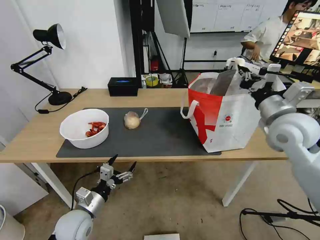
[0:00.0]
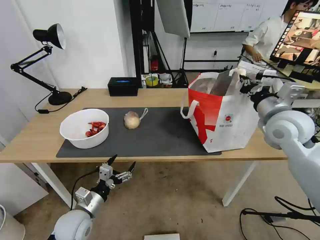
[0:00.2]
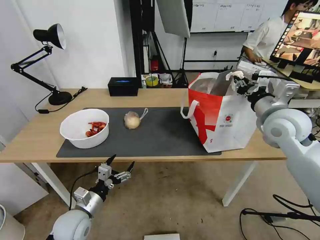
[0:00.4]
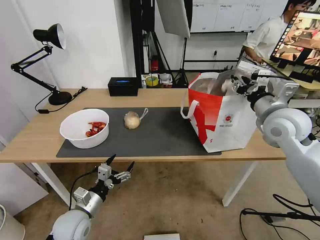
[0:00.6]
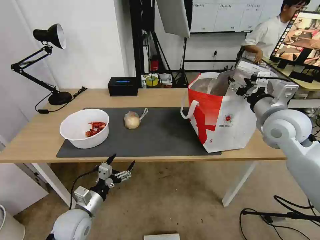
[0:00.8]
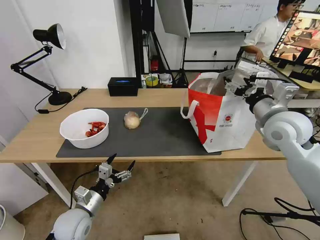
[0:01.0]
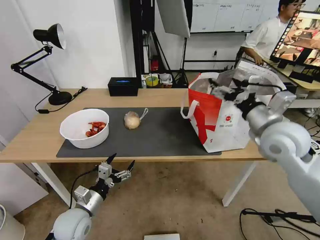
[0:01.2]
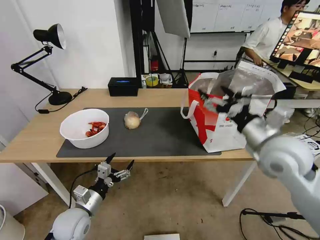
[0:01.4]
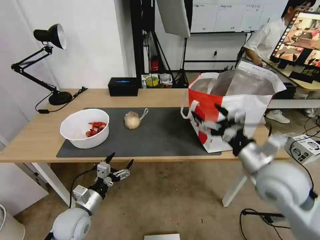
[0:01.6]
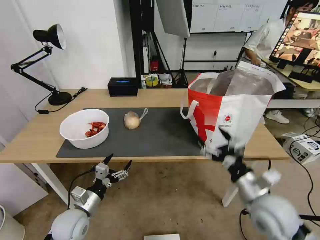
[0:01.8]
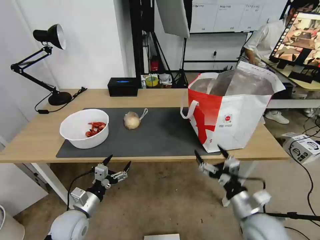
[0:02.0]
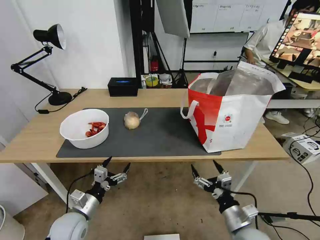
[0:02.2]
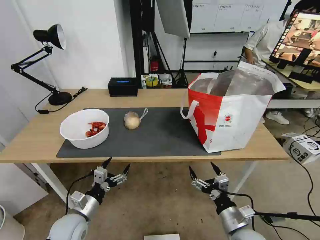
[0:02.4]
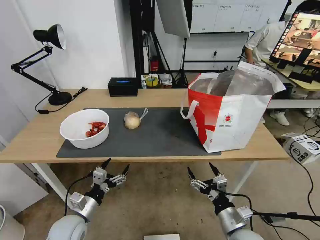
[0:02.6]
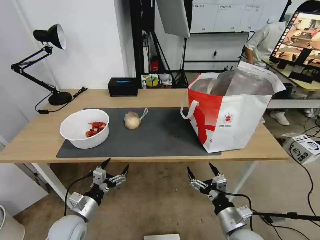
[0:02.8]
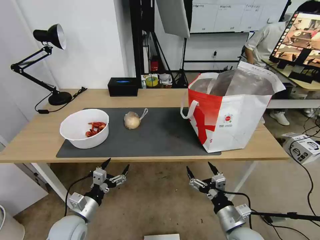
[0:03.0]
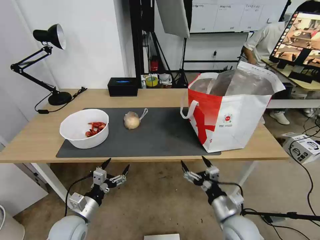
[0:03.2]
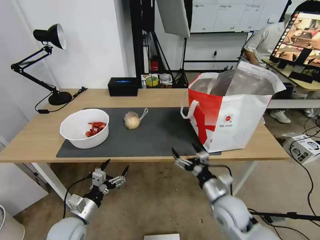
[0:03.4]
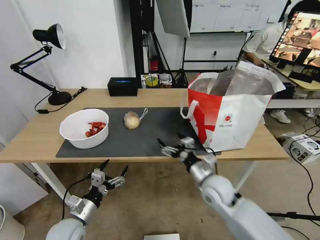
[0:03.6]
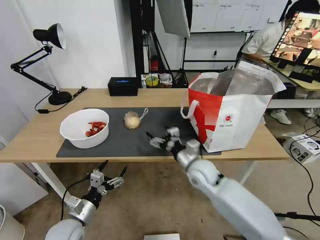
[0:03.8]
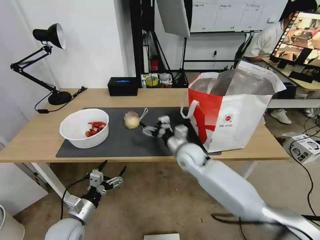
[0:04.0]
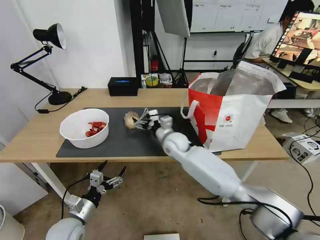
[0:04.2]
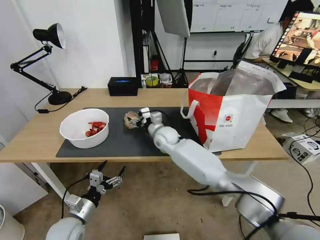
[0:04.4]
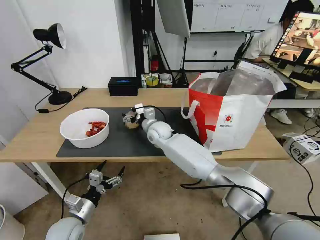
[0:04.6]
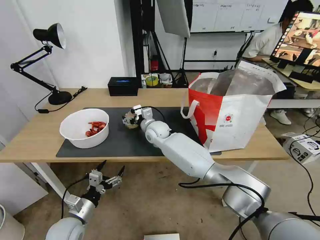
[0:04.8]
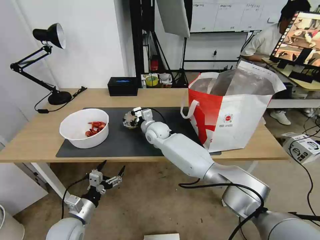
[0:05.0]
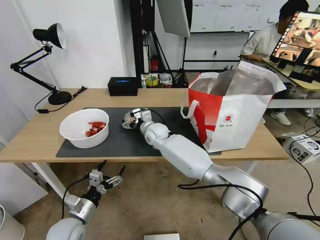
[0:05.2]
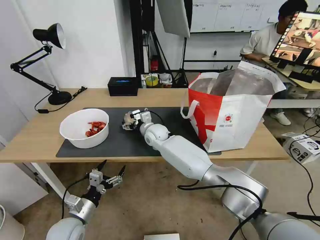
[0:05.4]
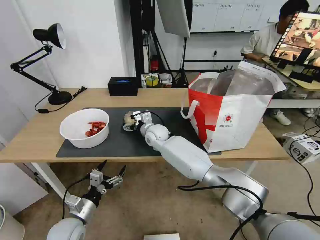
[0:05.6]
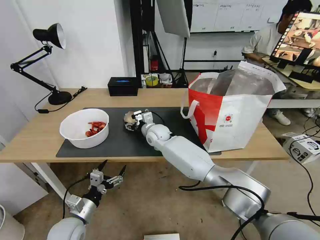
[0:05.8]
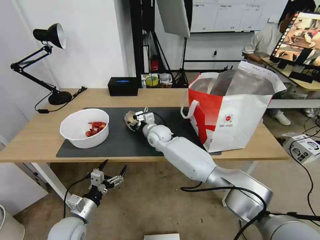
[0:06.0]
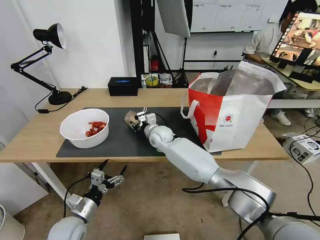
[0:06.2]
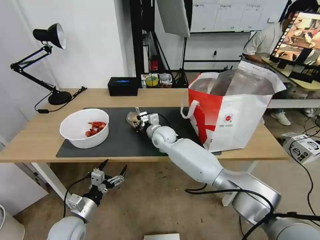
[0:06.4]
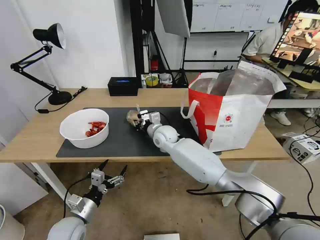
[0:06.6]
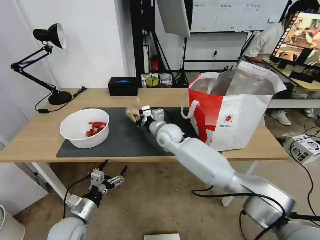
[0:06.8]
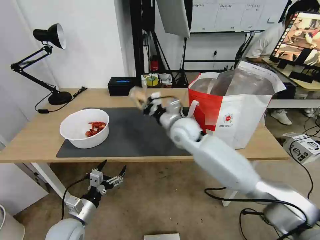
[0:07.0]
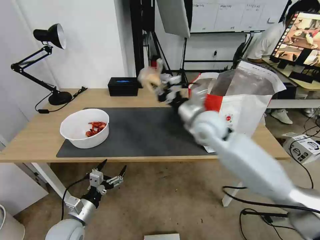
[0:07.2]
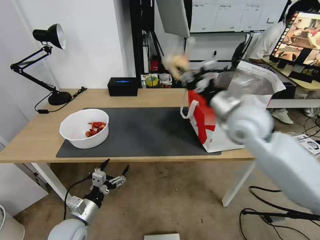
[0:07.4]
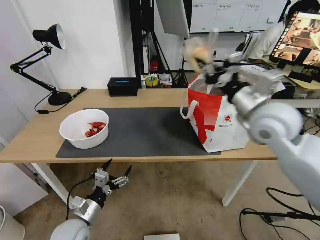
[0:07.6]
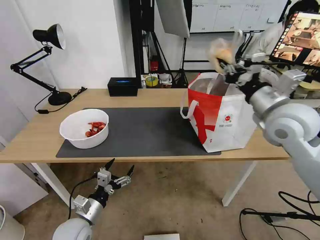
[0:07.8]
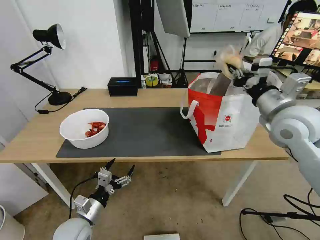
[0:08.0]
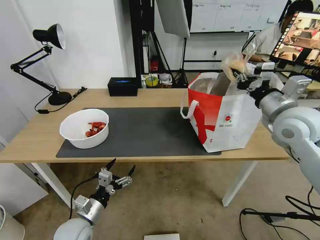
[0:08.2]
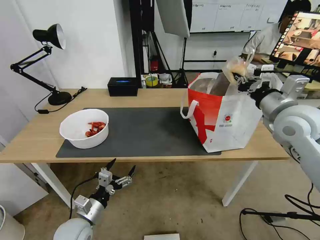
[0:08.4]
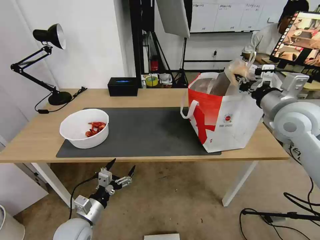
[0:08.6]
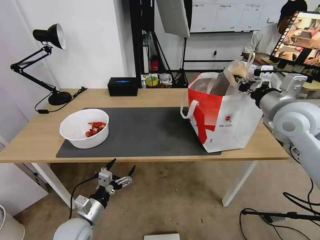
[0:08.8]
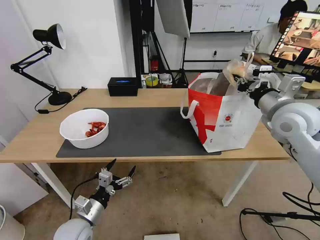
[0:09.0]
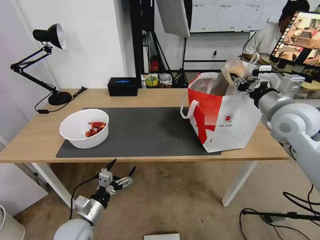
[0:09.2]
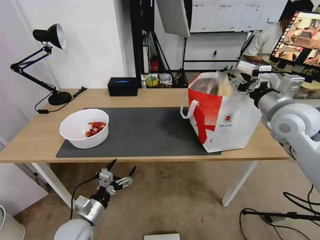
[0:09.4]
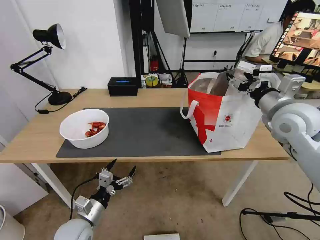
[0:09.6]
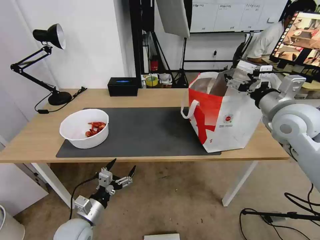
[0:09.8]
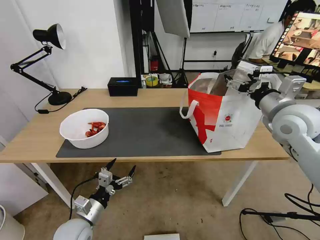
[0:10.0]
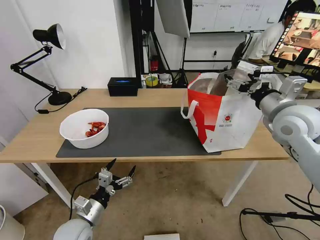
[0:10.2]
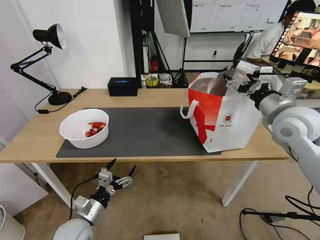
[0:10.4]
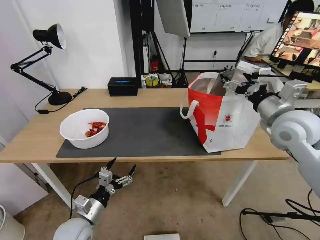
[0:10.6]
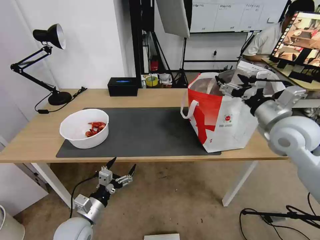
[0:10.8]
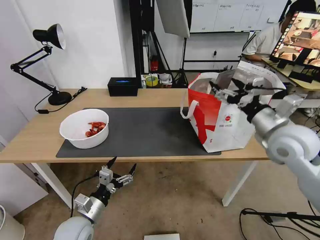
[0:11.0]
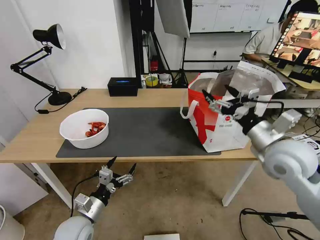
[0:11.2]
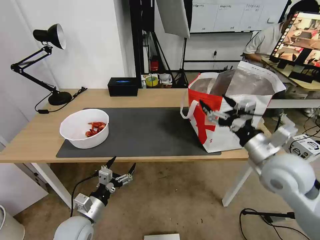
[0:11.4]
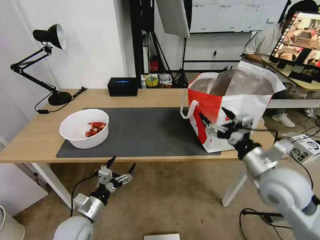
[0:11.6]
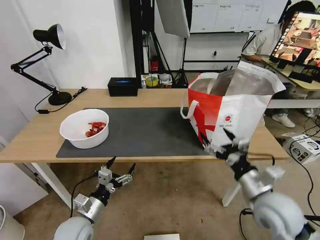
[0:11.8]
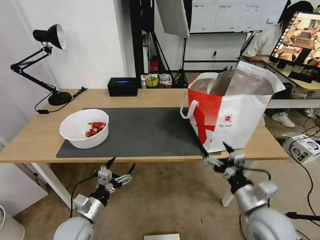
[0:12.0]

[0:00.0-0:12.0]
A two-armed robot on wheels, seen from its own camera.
Task of the whole recording: Pick up the trash from the table and place it into the takeout bag.
0:00.0 to 0:01.6: The right gripper goes about 15 cm backward, downward and to the left, and opens its fingers.
0:01.6 to 0:03.0: The right gripper goes about 20 cm downward and backward.
0:03.0 to 0:04.4: The right gripper travels forward and to the left by some 35 cm.
0:04.4 to 0:06.0: The right gripper moves to the left, some 5 cm, and closes its fingers.
0:06.0 to 0:07.6: The right gripper moves to the right, upward and backward, some 40 cm, and closes.
0:07.6 to 0:09.0: The right gripper goes roughly 10 cm to the right.
0:09.0 to 0:10.4: The right gripper opens its fingers.
0:10.4 to 0:12.0: The right gripper heads downward and backward, covering about 25 cm.

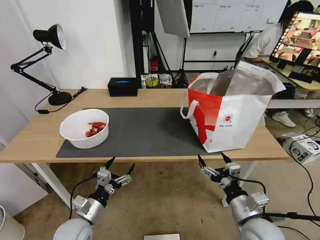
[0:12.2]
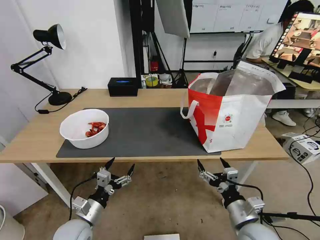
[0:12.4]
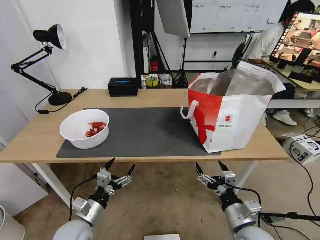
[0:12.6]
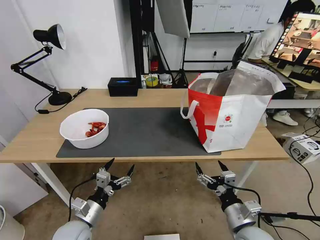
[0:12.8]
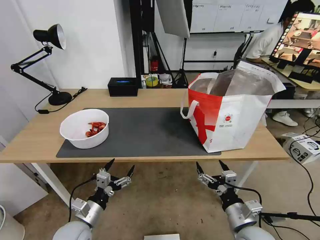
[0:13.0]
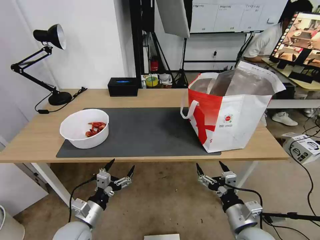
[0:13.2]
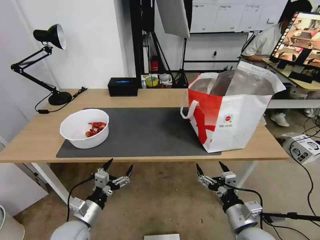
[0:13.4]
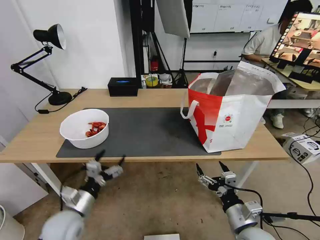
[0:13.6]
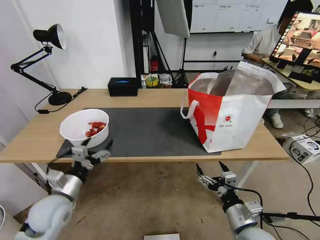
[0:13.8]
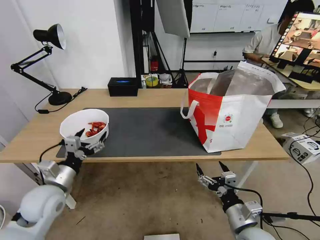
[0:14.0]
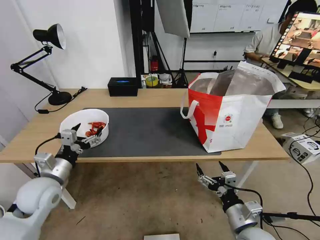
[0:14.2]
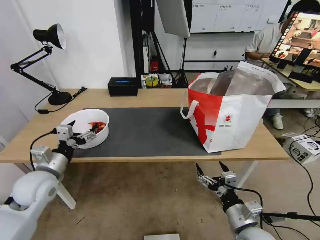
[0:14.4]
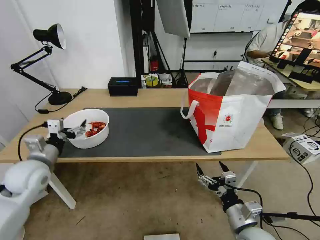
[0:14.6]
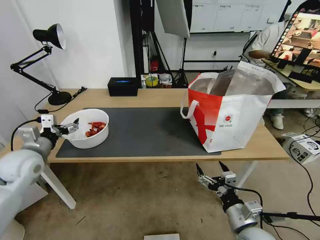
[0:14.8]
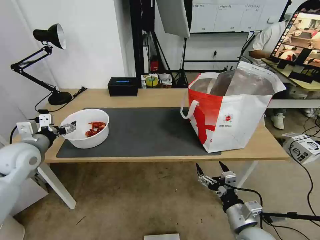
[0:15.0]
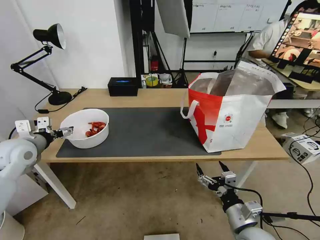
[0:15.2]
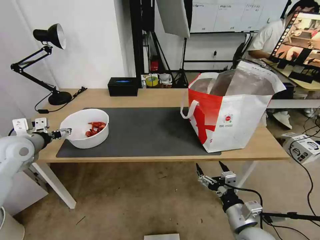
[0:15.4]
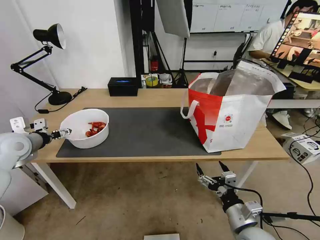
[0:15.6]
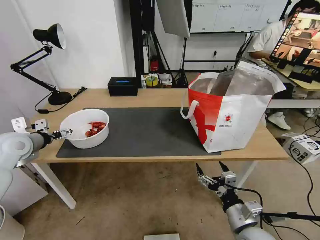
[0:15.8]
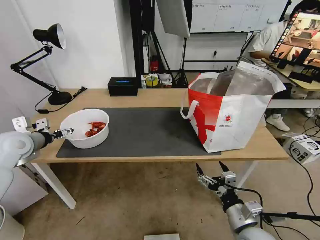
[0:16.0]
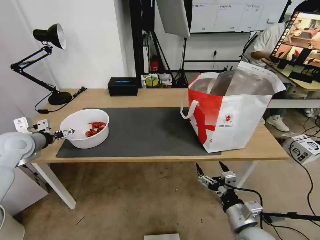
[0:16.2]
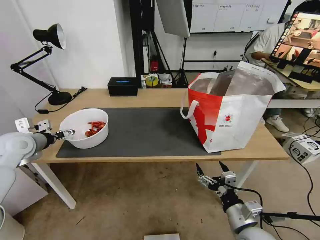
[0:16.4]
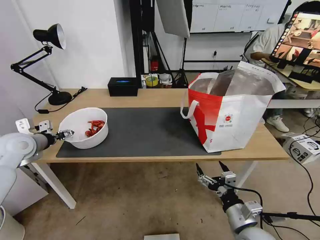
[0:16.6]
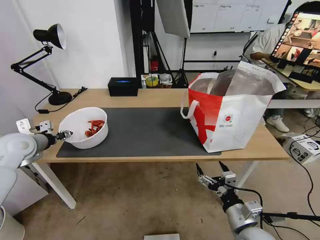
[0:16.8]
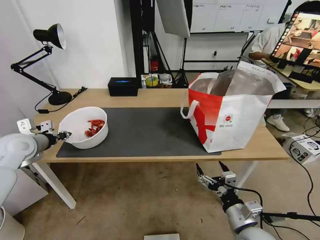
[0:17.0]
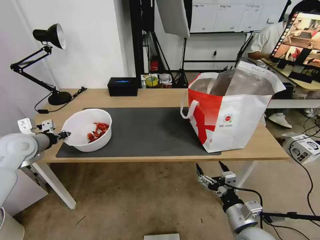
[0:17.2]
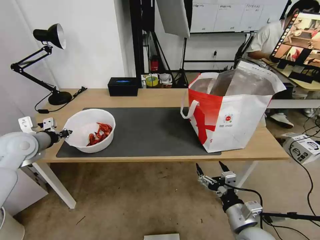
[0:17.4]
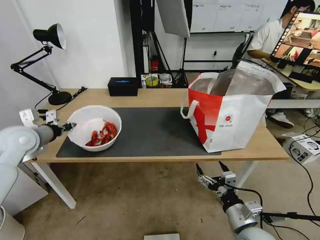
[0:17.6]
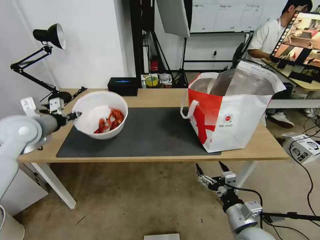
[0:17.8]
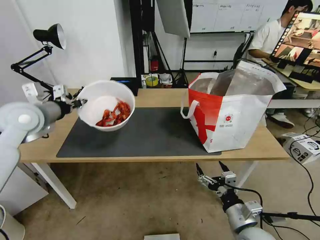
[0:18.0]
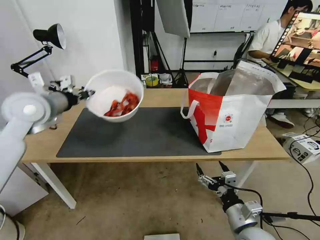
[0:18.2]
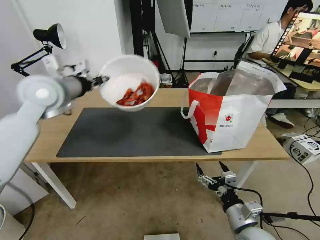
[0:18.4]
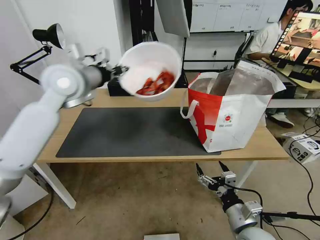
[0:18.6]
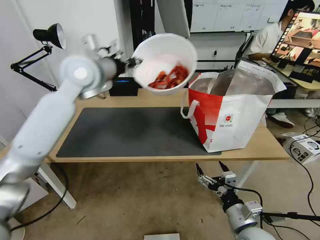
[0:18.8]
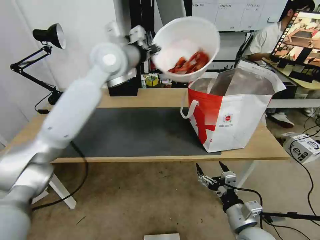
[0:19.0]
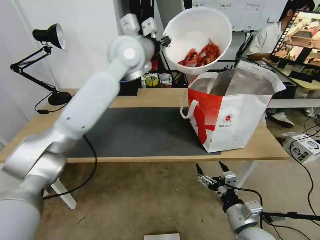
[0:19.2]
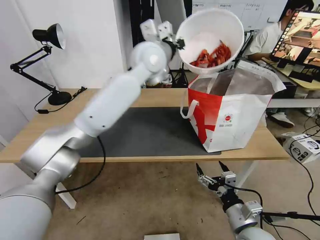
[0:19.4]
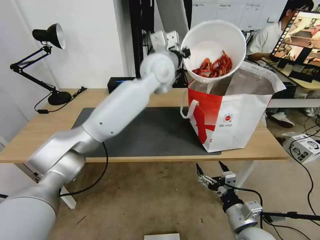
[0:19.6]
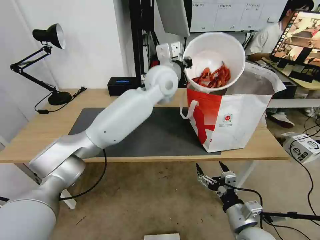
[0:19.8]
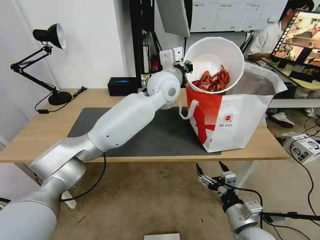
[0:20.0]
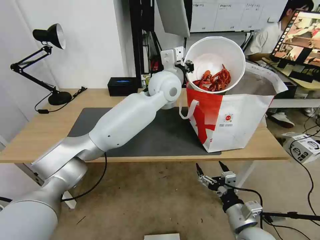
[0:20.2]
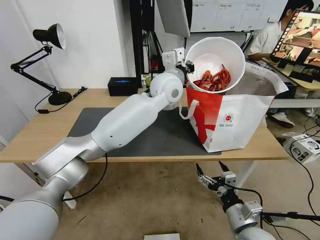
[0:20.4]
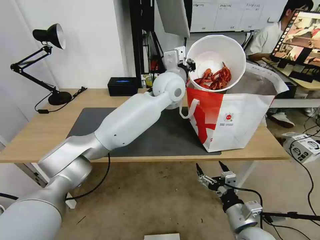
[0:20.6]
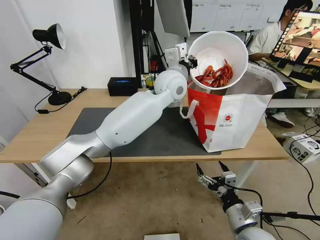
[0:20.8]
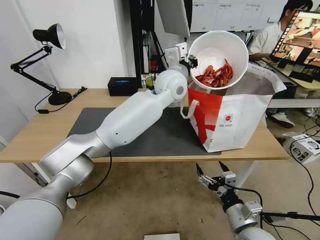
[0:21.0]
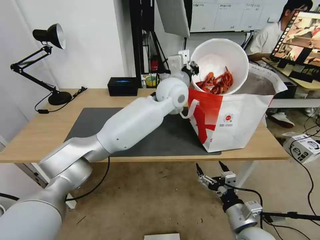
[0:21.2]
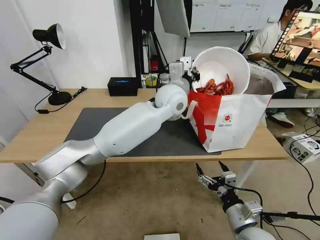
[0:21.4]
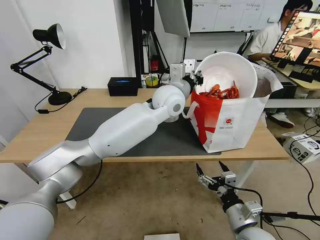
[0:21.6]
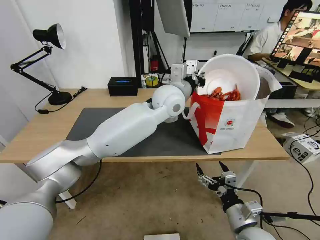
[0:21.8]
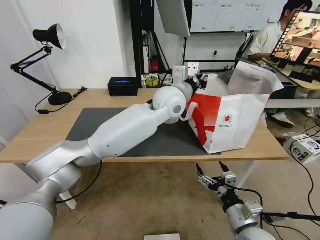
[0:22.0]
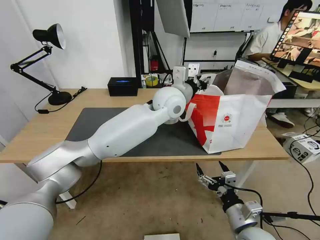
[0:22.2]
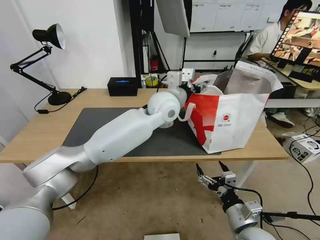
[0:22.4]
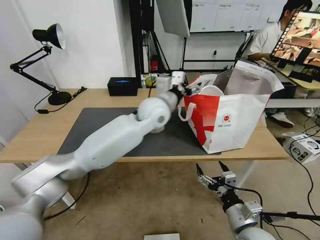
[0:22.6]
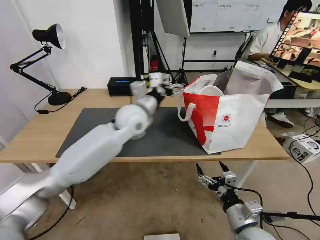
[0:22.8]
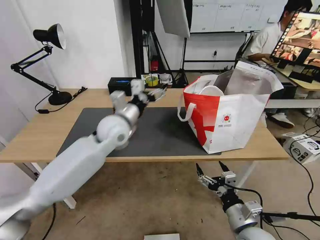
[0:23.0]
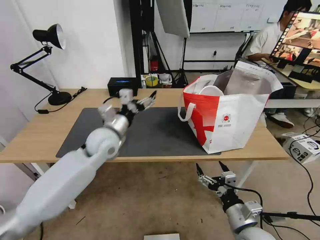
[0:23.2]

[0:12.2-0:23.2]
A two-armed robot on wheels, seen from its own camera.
Task of the whole recording: Pick up the trash from the table and place it into the takeout bag.
0:12.2 to 0:13.8: The left gripper heads upward, covering roughly 10 cm.
0:13.8 to 0:15.4: The left gripper travels forward, to the left and upward by roughly 20 cm.
0:15.4 to 0:17.0: The left gripper closes its fingers.
0:17.0 to 0:18.4: The left gripper is displaced upward and to the right by roughly 20 cm.
0:18.4 to 0:20.0: The left gripper heads to the right, covering roughly 30 cm.
0:20.0 to 0:21.6: The grippers make only small movements.
0:21.6 to 0:23.2: The left gripper moves to the left and downward, approximately 20 cm, and opens up.
